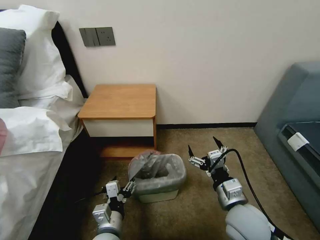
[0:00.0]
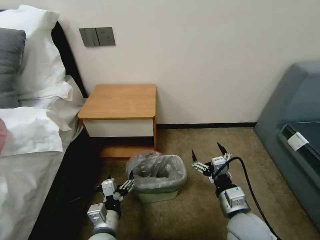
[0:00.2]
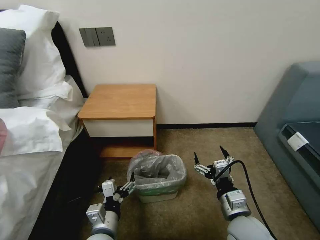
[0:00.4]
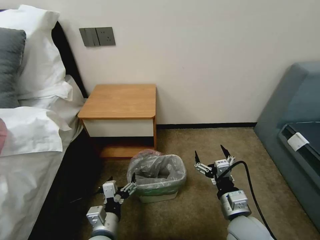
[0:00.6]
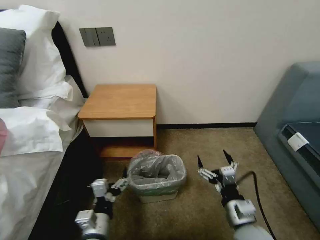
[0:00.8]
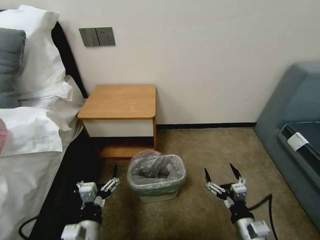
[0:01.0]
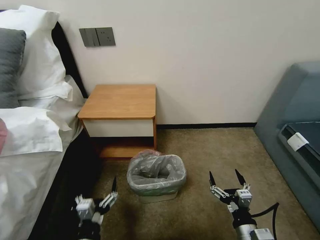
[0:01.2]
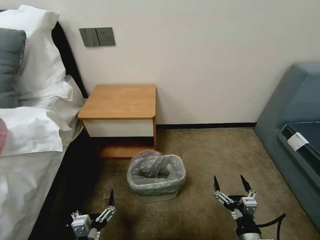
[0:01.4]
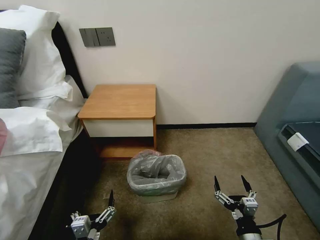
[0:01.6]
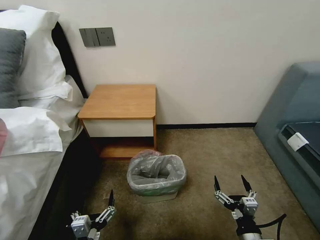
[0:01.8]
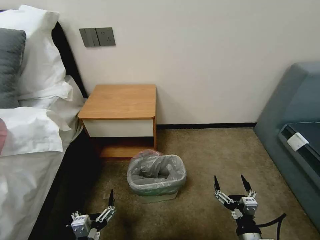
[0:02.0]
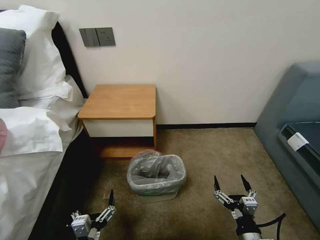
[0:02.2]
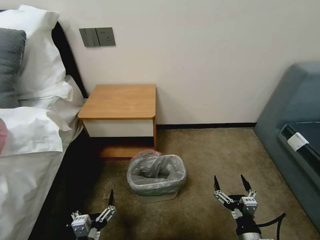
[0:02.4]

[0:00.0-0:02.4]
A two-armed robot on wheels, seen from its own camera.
Task of the whole recording: Pick up the garbage bag from the table and place it over the trash can.
0:00.0 to 0:01.2: The right gripper heads downward, backward and to the right, covering about 15 cm. The left gripper goes about 10 cm backward and to the left.
0:01.2 to 0:02.4: There are only small adjustments of the grippers.
